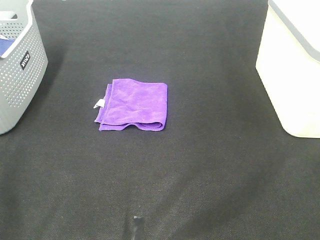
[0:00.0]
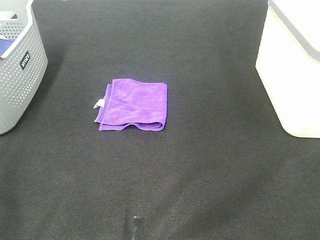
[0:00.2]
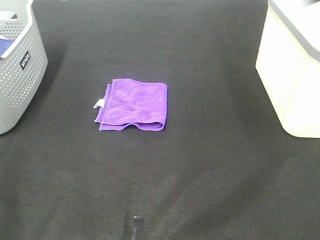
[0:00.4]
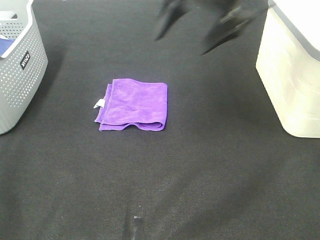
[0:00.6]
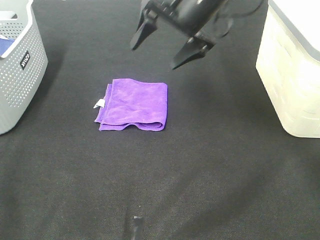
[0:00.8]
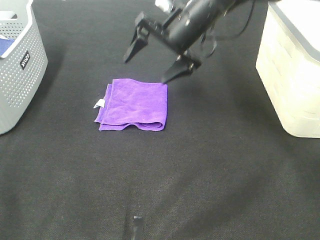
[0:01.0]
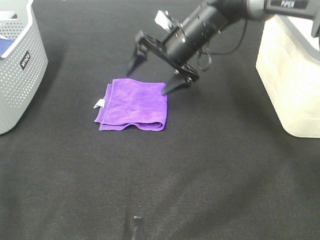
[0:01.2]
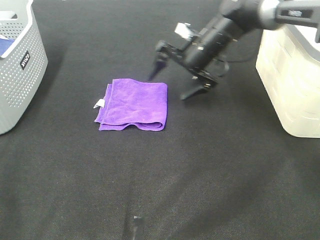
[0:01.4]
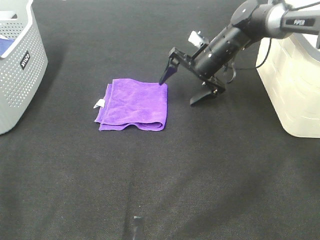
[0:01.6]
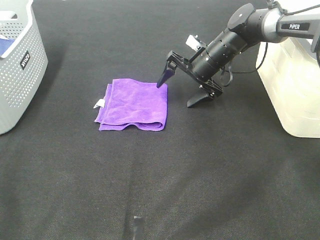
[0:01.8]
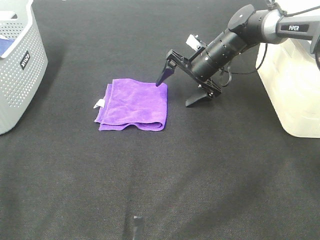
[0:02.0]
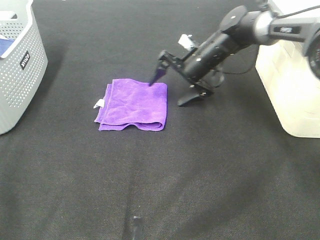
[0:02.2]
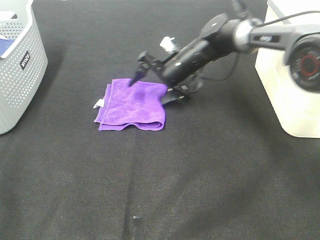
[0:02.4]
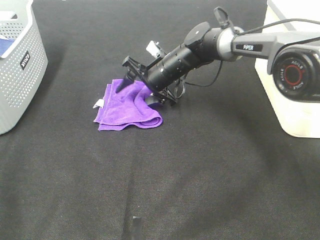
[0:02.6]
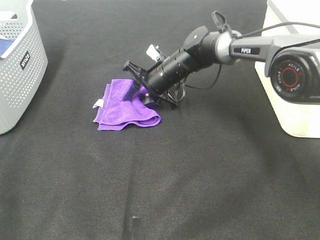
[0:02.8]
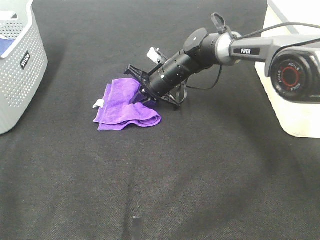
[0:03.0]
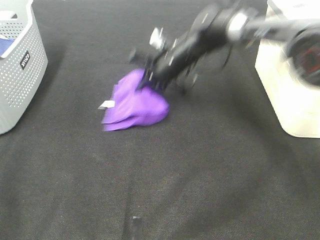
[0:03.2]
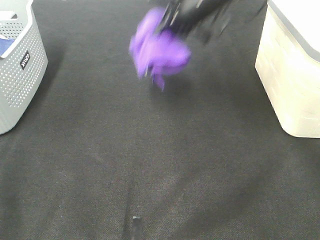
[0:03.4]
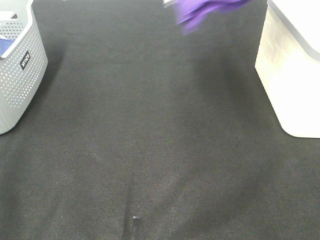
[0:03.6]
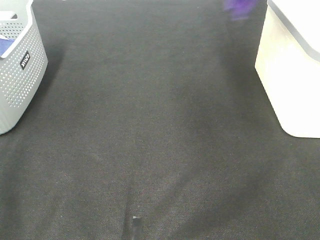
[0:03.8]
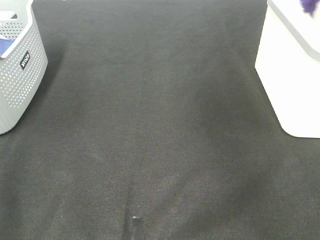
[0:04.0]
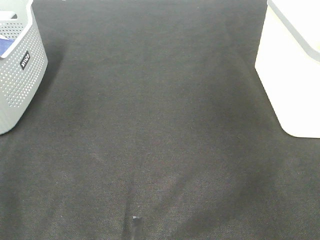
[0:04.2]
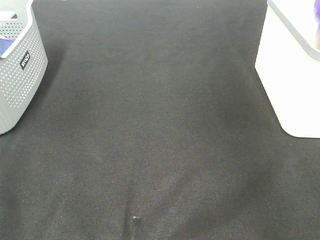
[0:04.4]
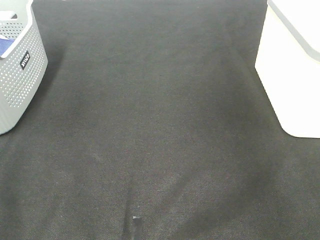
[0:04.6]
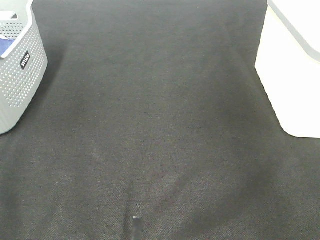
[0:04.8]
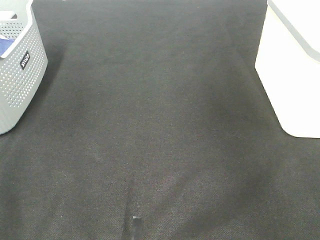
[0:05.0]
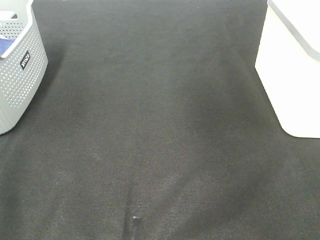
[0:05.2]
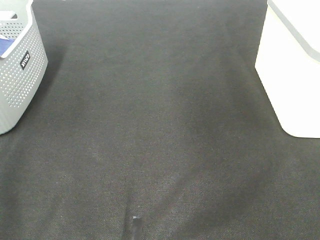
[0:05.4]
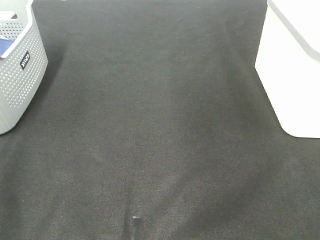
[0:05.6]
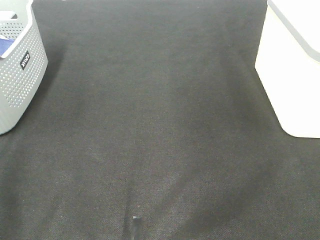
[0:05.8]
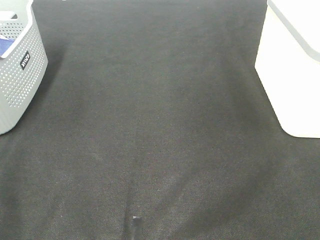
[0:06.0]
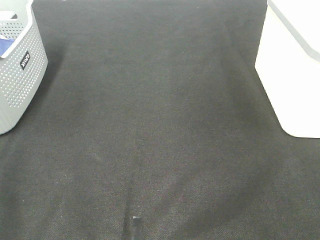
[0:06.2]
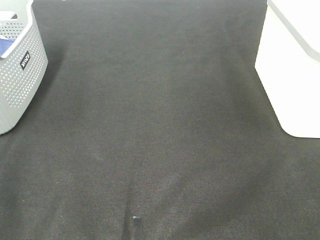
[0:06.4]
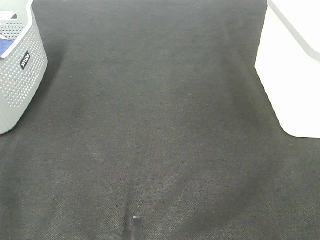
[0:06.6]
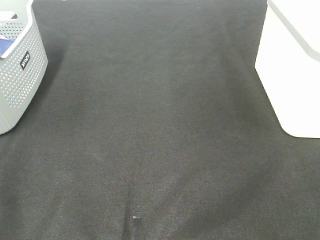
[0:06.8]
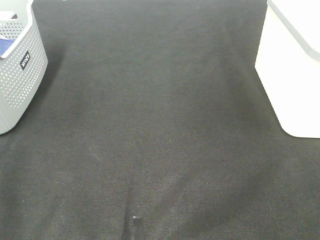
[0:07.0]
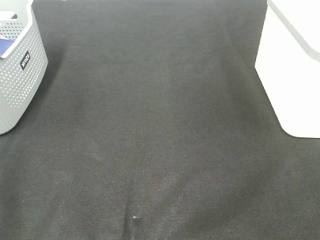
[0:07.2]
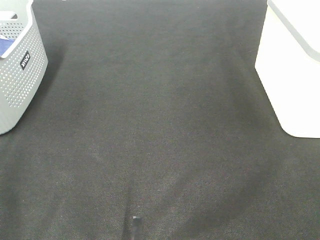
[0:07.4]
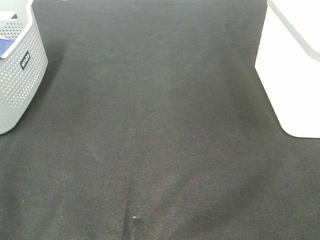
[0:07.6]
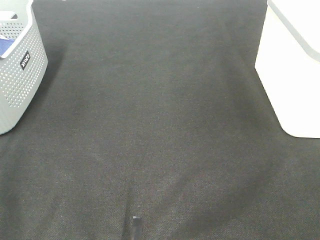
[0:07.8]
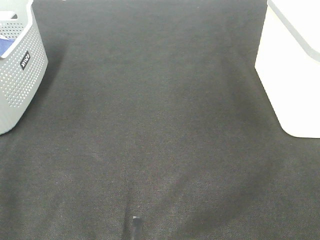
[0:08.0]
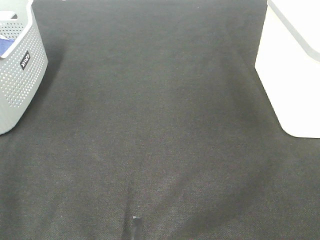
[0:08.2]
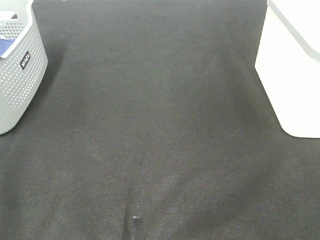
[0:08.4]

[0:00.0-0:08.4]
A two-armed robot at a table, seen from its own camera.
Step, 0.0 to 2.8 s: Right hand: grab the folded purple towel.
Step, 3.0 to 4.6 s: Right hand: place the purple towel in right basket.
0.0 to 1.4 s: The right gripper is displaced forward, downward and to the left by some 40 cm.
1.4 to 2.8 s: The right gripper moves to the left and downward, some 10 cm, and closes up.
2.8 to 4.2 s: The right gripper travels upward and to the right by approximately 50 cm.
7.0 to 8.4 s: The two grippers keep their place.

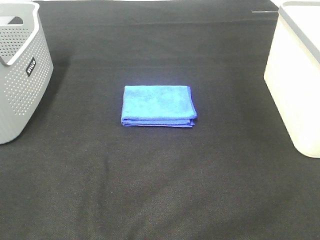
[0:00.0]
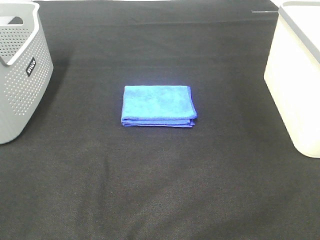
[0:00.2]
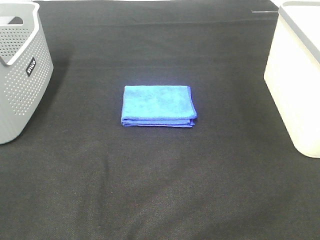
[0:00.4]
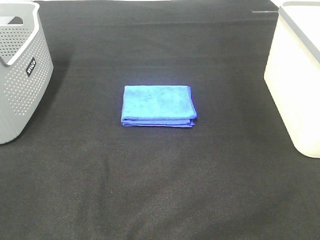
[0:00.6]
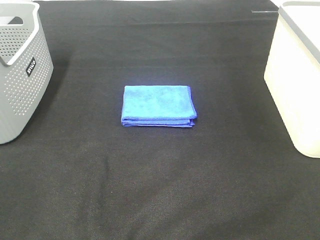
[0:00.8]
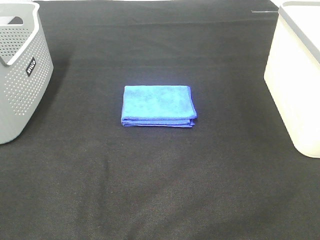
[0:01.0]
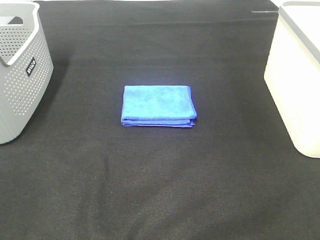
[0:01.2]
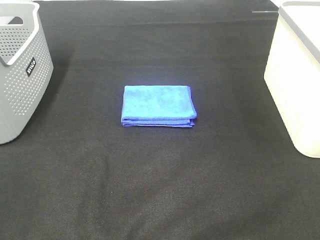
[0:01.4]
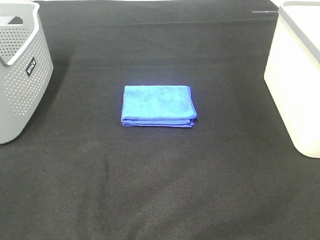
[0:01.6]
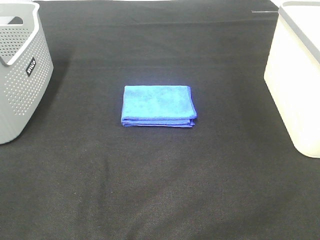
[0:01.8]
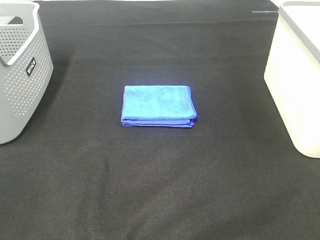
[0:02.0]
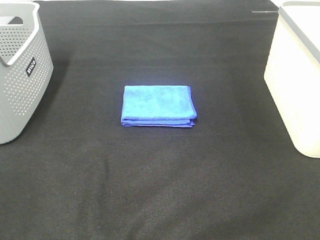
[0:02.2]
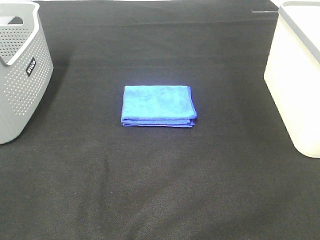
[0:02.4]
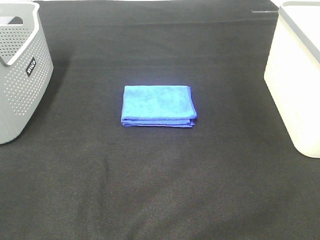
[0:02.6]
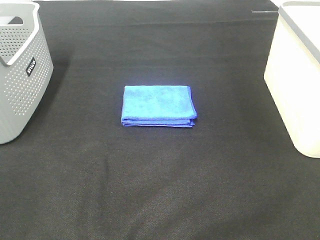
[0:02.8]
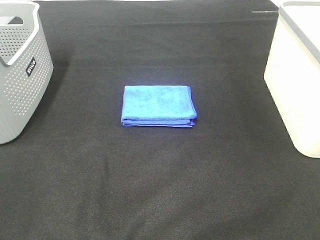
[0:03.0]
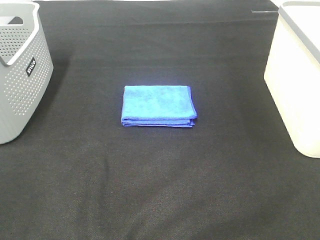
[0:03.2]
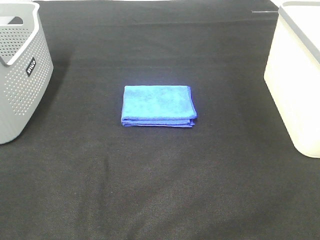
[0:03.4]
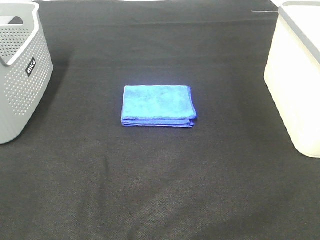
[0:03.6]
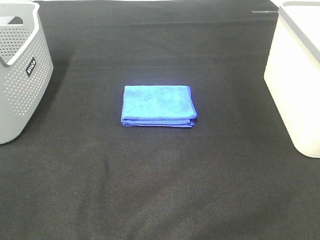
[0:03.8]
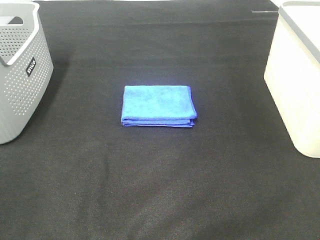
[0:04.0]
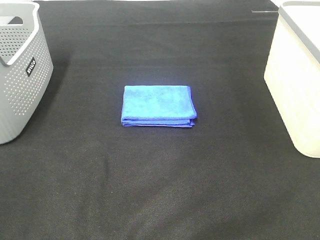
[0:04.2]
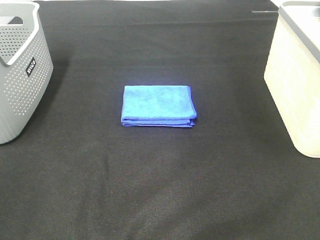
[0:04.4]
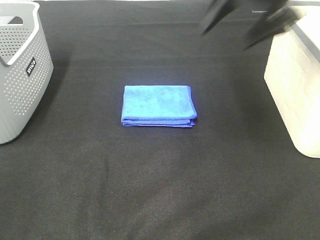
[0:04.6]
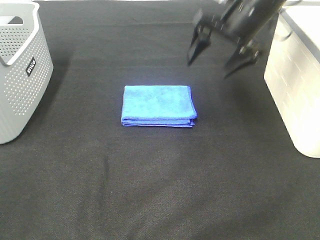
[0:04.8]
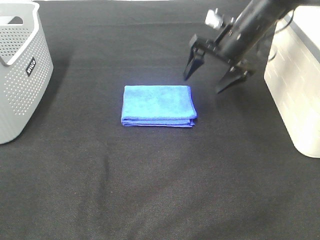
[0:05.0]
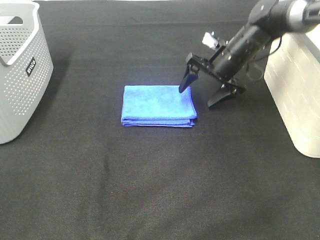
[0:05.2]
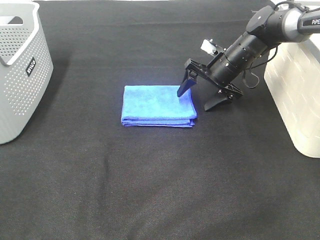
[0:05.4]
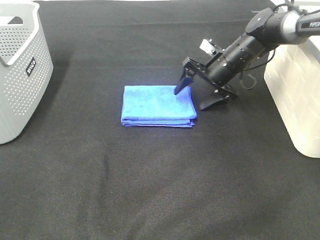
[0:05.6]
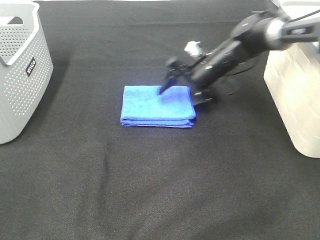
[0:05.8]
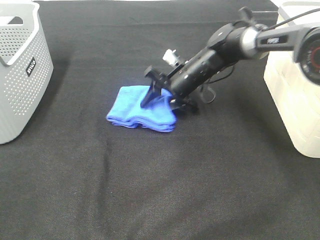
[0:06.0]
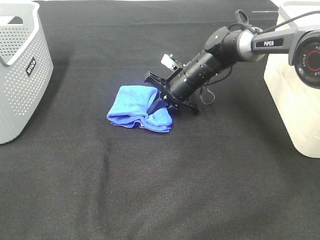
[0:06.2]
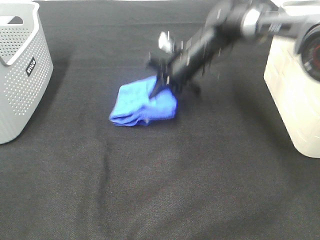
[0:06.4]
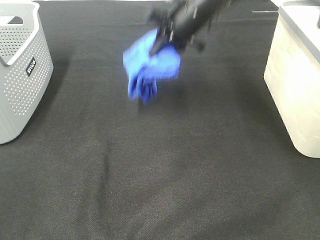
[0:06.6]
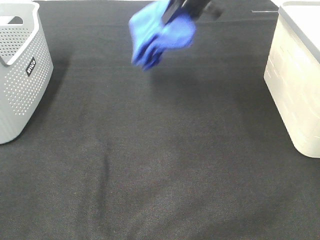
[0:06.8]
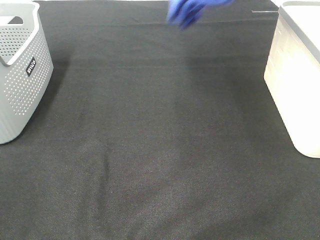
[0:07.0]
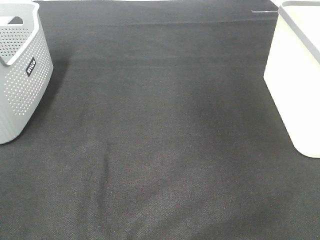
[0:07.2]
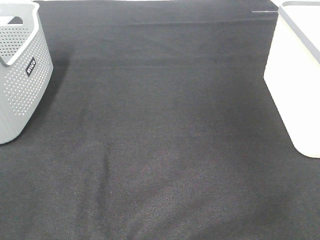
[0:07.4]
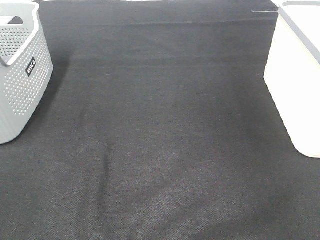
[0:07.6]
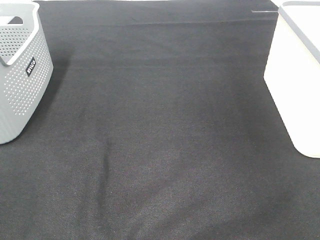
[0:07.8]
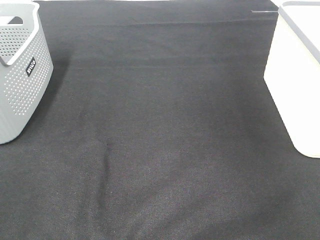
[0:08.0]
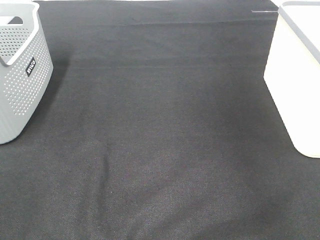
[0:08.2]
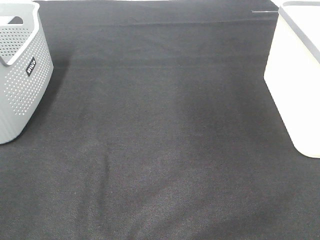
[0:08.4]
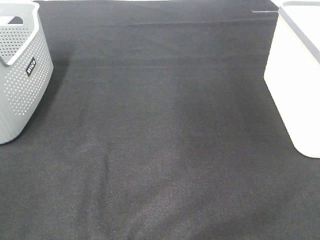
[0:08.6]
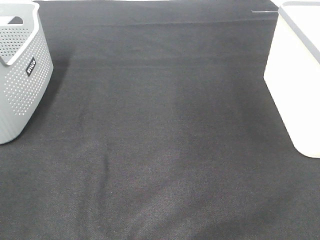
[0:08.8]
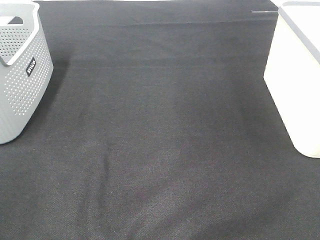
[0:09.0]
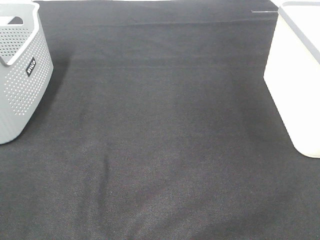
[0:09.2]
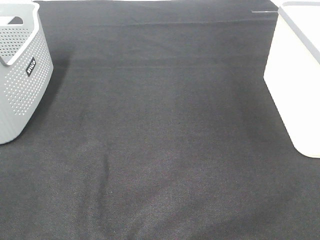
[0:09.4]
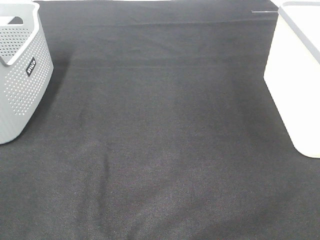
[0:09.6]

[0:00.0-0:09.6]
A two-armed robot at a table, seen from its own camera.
Step, 0.0 to 6.2 s: Right hand: grab the folded blue towel.
Step, 6.4 to 8.0 s: Right hand: place the blue towel in right basket.
0.0 to 3.2 s: Both grippers stay about where they are.
3.2 to 4.8 s: The right gripper heads forward, covering some 40 cm.
4.8 to 6.4 s: The right gripper travels to the left and downward by roughly 10 cm, and closes.
6.4 to 8.0 s: The right gripper travels to the right and upward by approximately 40 cm, and opens its fingers.

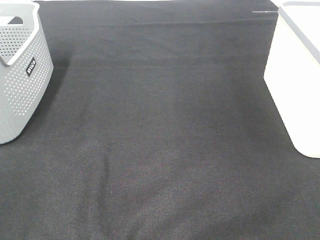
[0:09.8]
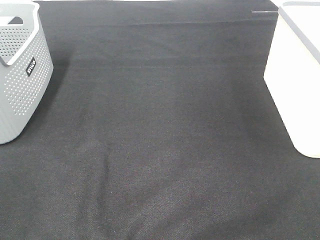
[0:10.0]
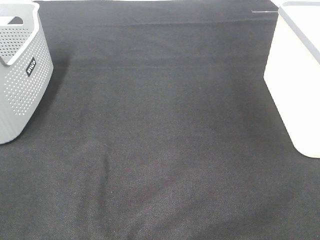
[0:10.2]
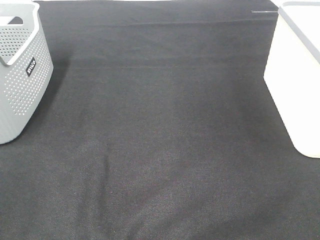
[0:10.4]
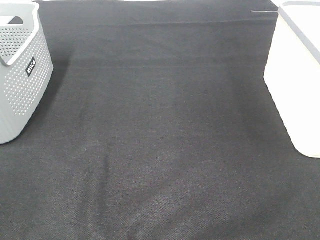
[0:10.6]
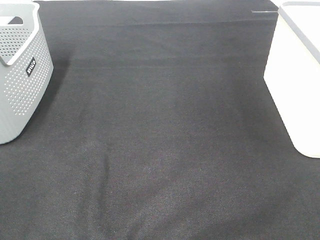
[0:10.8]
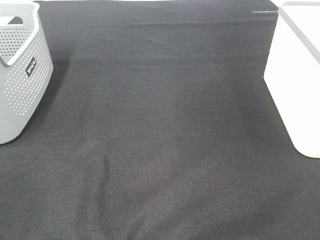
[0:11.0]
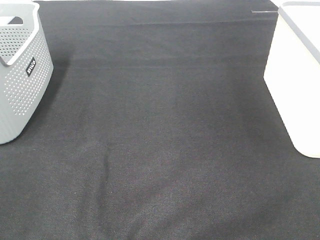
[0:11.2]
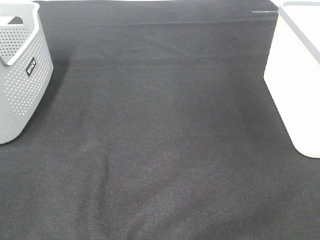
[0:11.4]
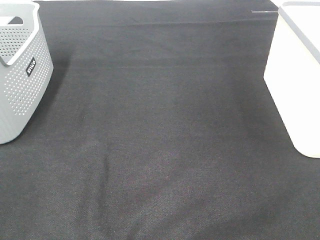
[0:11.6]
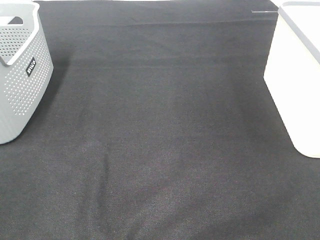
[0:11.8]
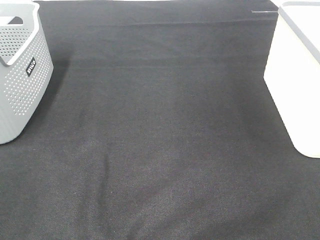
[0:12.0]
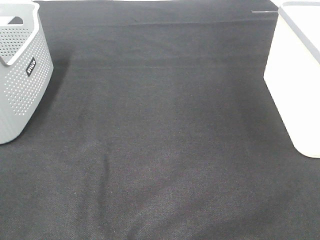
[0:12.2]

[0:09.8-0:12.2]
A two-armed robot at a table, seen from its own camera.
9.8 to 12.2 s: The two grippers keep their place.

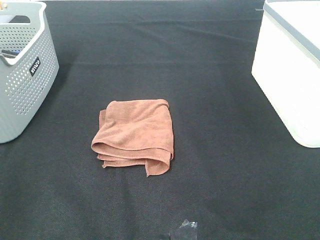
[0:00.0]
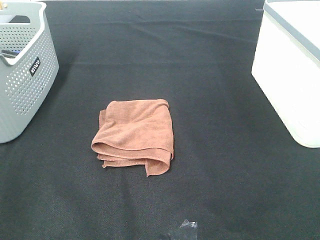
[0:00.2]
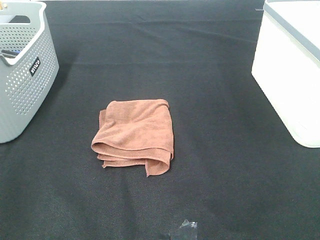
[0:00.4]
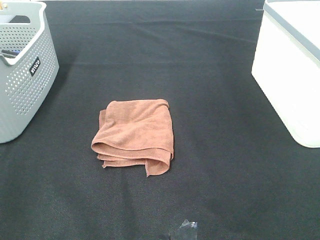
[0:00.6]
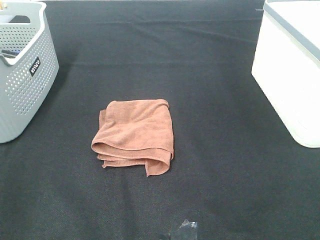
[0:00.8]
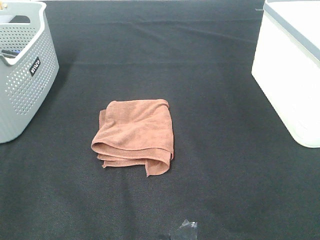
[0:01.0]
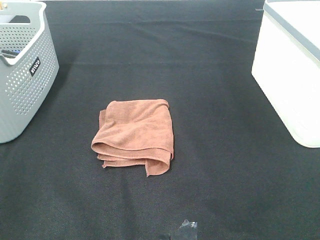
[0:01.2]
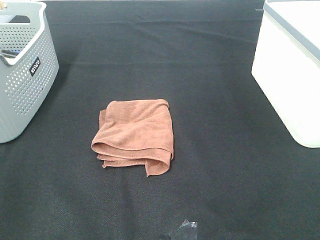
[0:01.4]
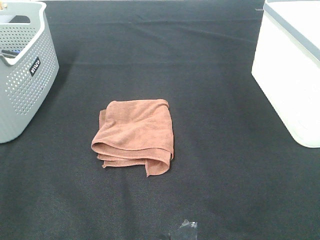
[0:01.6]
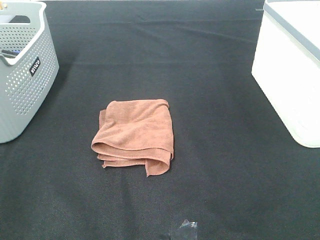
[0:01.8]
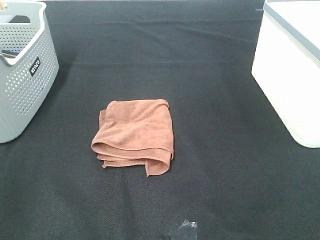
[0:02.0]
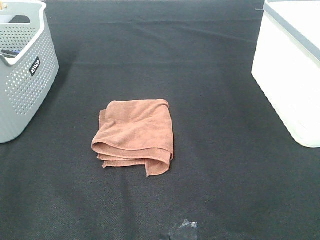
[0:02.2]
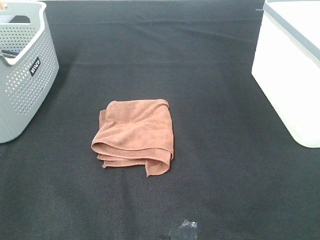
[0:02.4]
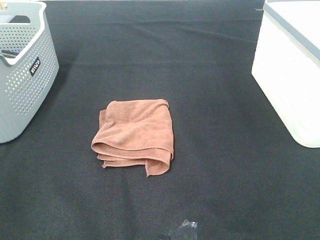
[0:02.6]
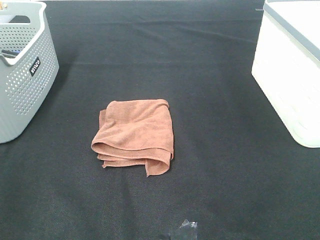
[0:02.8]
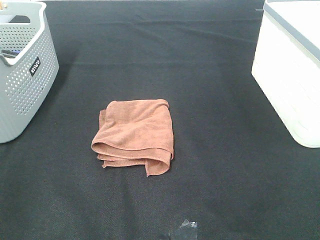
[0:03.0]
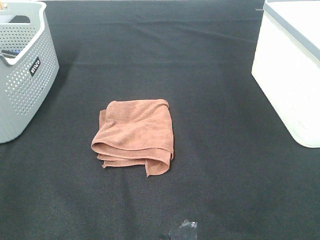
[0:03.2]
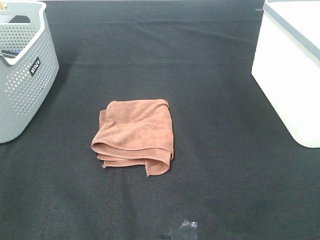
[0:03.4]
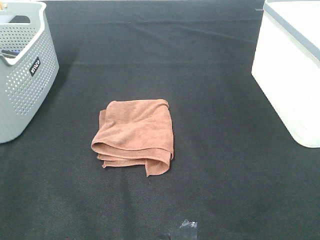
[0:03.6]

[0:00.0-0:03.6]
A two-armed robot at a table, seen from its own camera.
0.0 to 1.8 s: Both grippers stay put.
